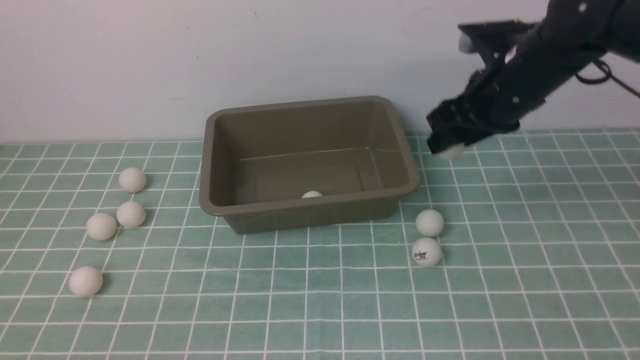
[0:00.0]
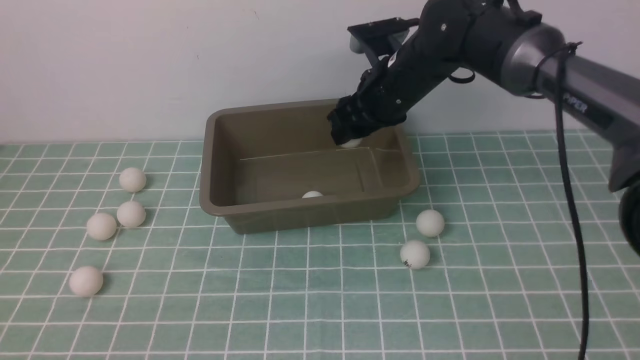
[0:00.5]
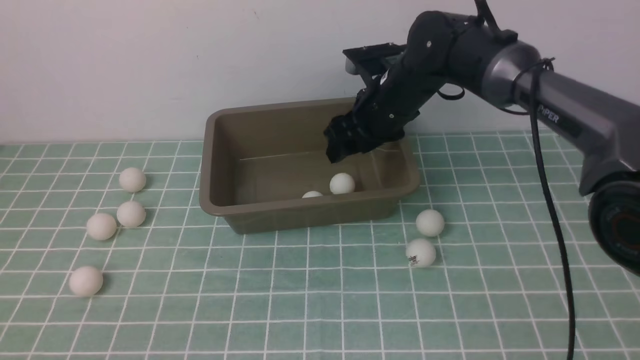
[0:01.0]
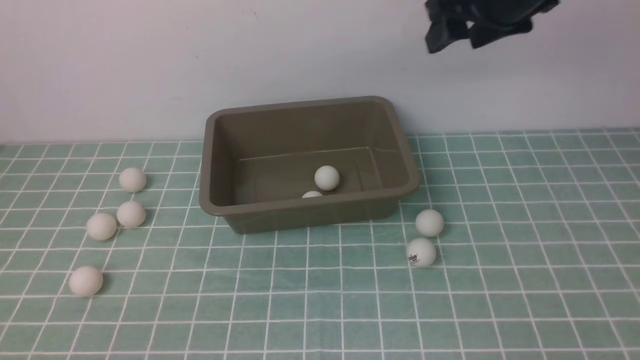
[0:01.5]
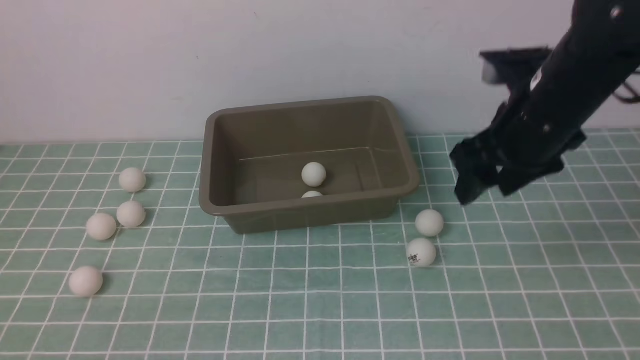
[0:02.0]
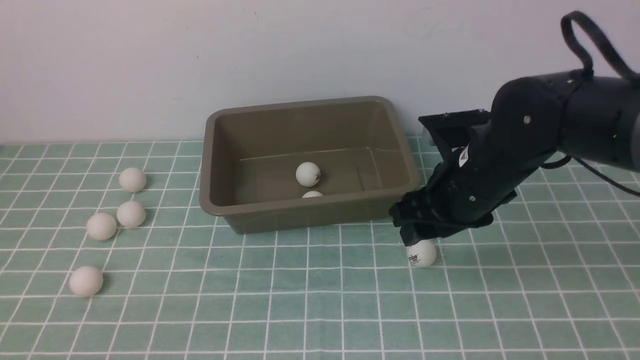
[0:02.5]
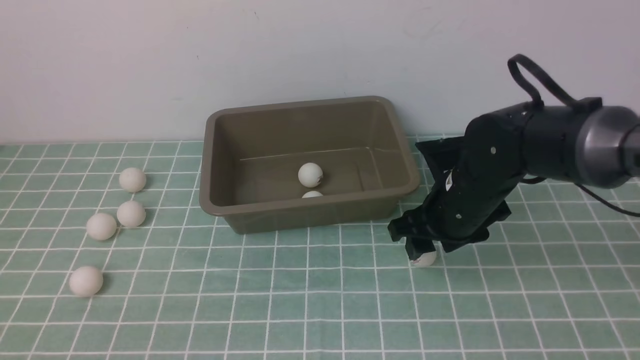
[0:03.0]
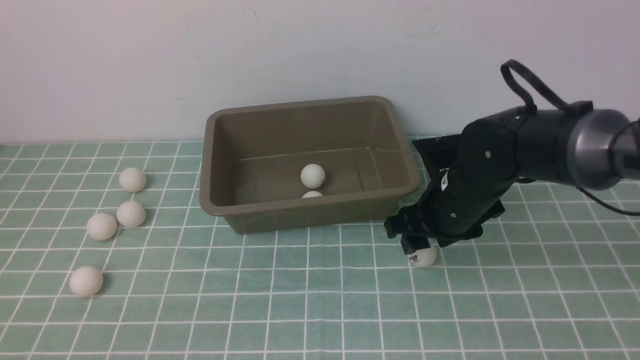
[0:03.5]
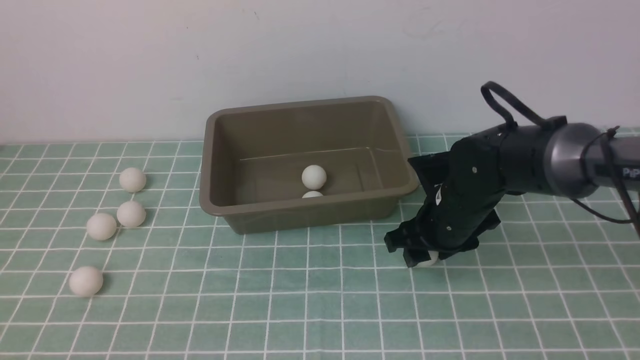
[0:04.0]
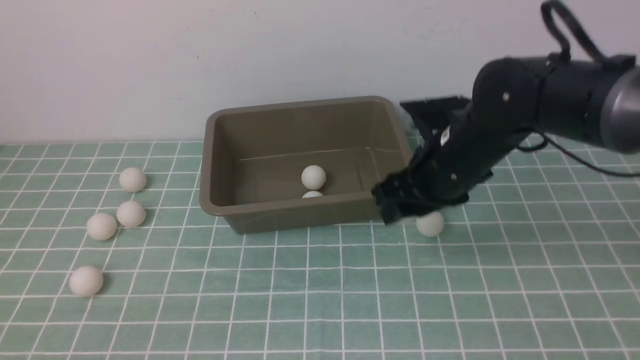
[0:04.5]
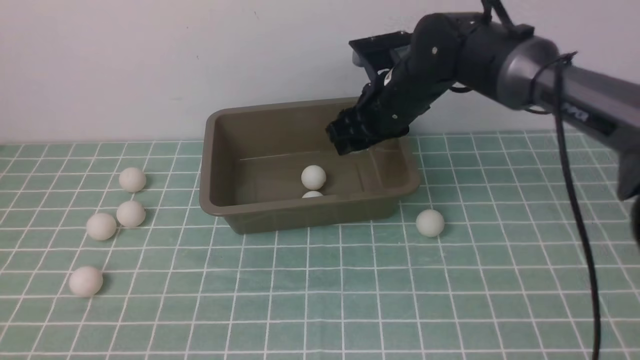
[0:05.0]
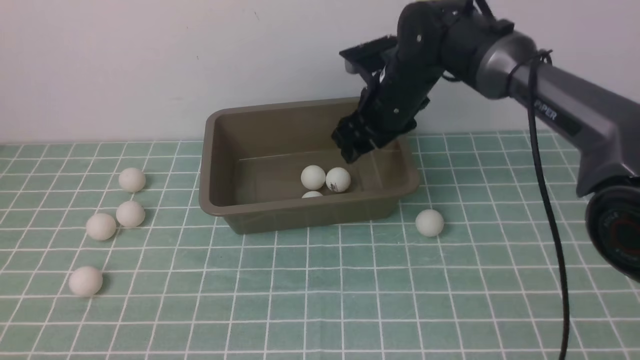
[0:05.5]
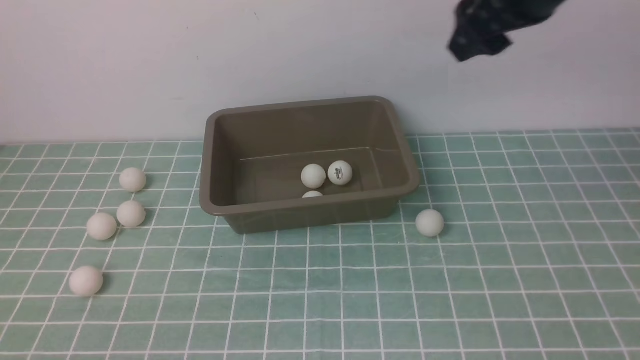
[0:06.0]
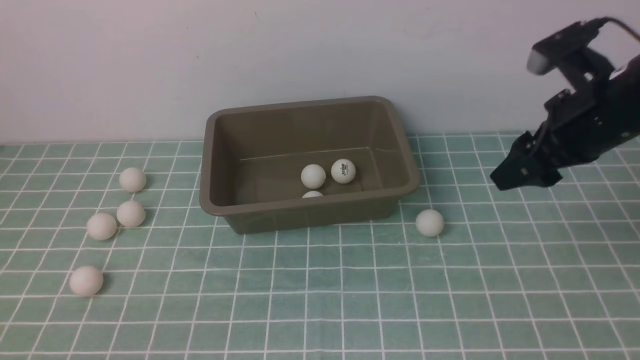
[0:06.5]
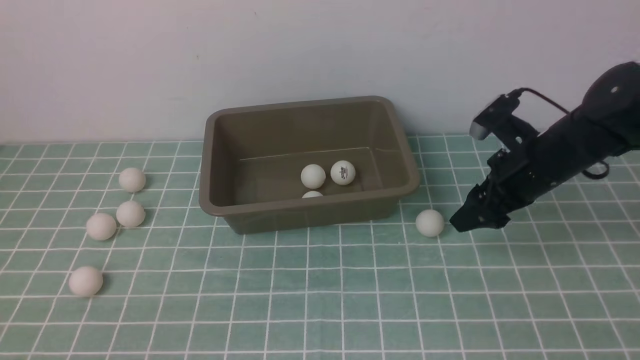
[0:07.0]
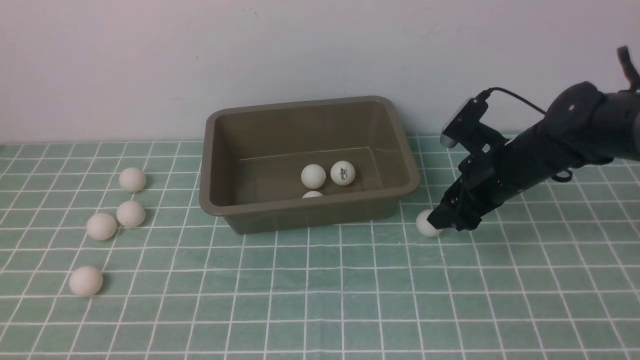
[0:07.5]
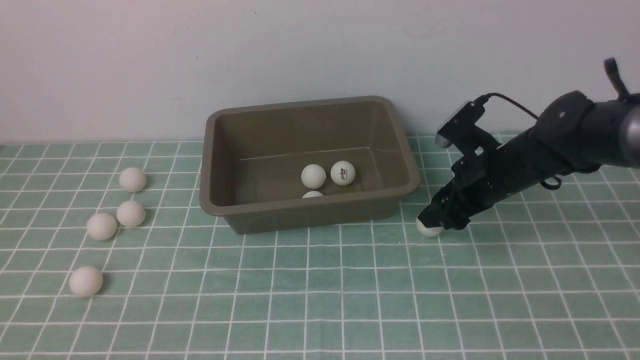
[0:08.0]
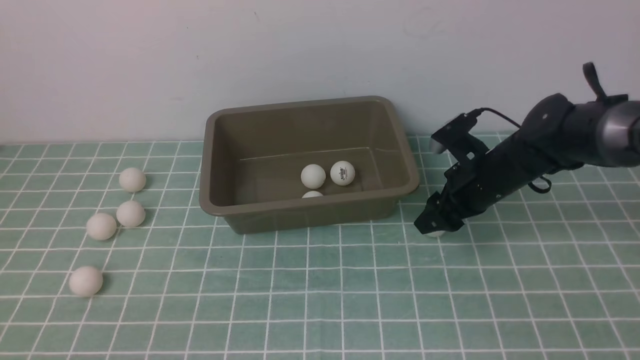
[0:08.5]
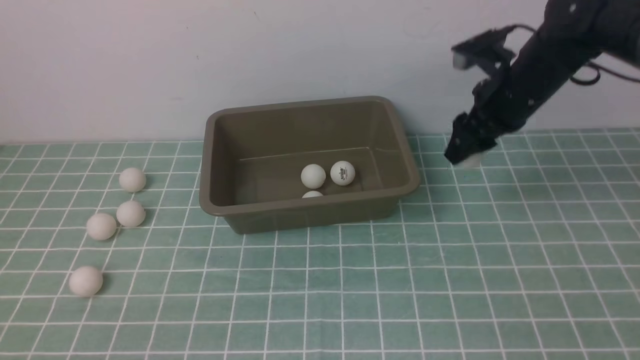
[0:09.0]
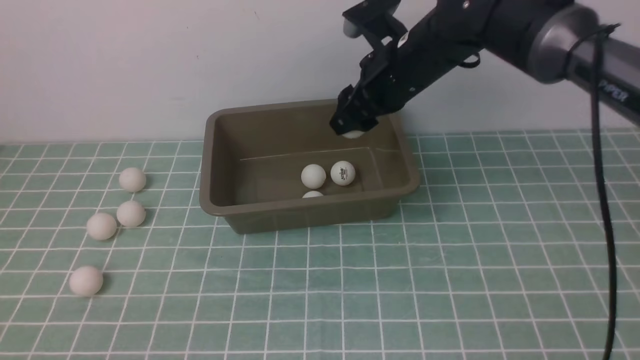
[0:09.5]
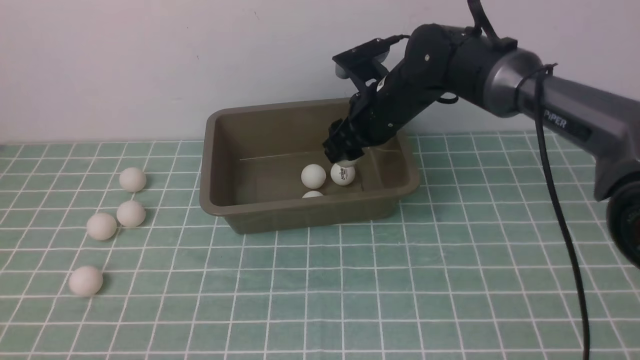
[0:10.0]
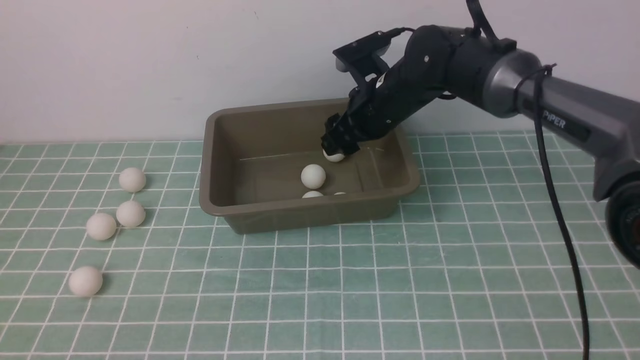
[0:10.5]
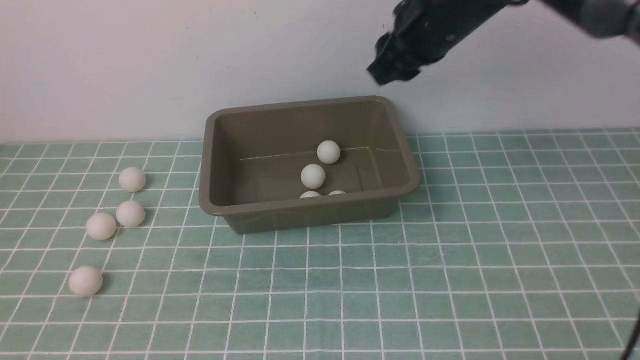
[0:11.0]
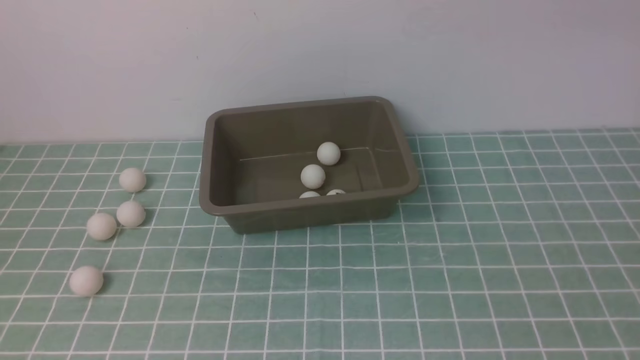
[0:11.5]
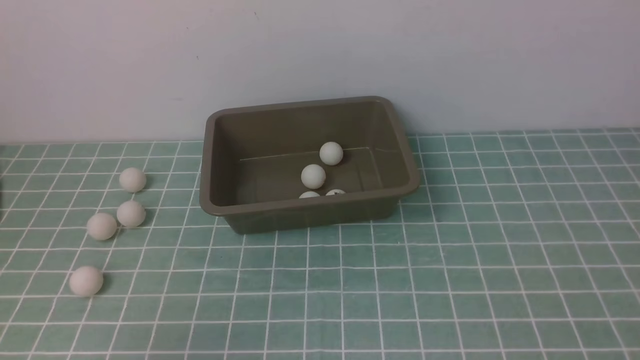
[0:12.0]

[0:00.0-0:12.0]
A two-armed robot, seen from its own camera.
Step, 0:00.0 to 0:01.0: use the right arm to put the table tennis ball into the box.
Step, 0:01.5 to 0:04.0: use the right arm to clamp the table tennis ball closest to it.
Step, 0:04.5 to 0:05.0: use the right arm to put the table tennis ball into the box.
Step, 0:05.5 to 0:08.5: use the right arm to clamp the table tennis ball closest to it.
Step, 0:09.0 to 0:10.0: use the right arm to put the table tennis ball into the box.
0:00.0 to 0:02.0: The right gripper travels backward and to the right by some 15 cm.
0:02.0 to 0:04.0: The right gripper moves downward, approximately 10 cm.
0:04.0 to 0:06.0: The right gripper travels upward by some 25 cm.
0:06.0 to 0:08.0: The right gripper shifts about 25 cm downward.
0:08.0 to 0:10.0: The right gripper travels to the left and upward by approximately 15 cm.
0:10.0 to 0:12.0: The right gripper heads backward, to the right and upward, covering about 40 cm, and closes up; the left gripper moves upward and forward, approximately 20 cm.

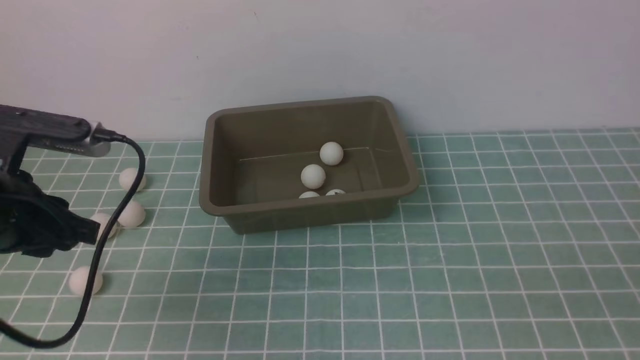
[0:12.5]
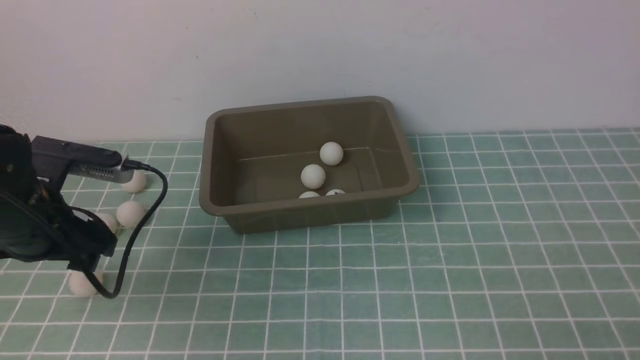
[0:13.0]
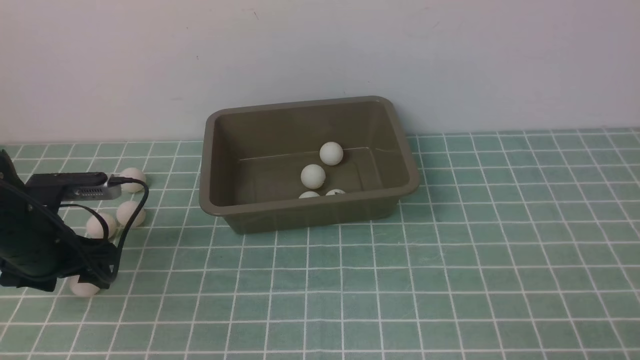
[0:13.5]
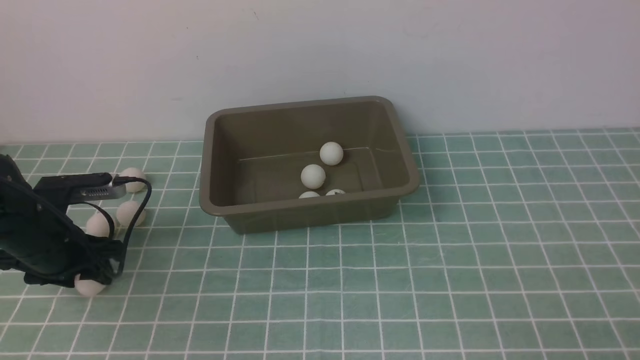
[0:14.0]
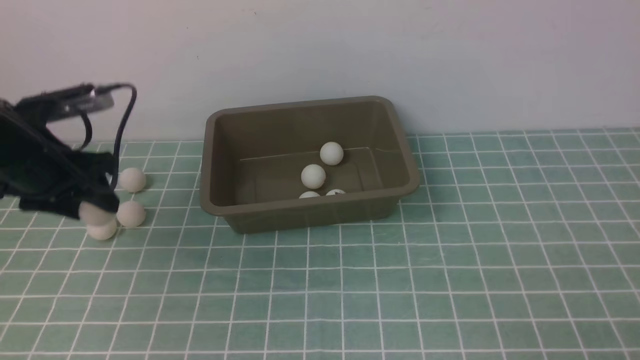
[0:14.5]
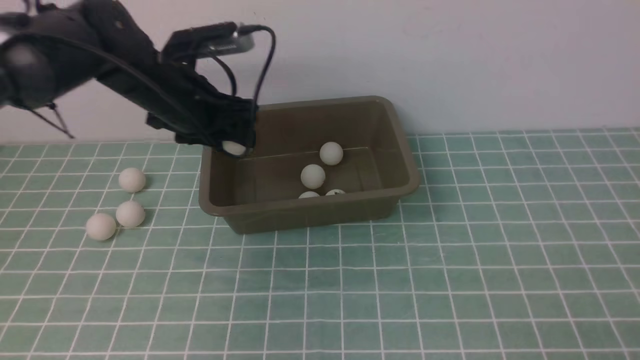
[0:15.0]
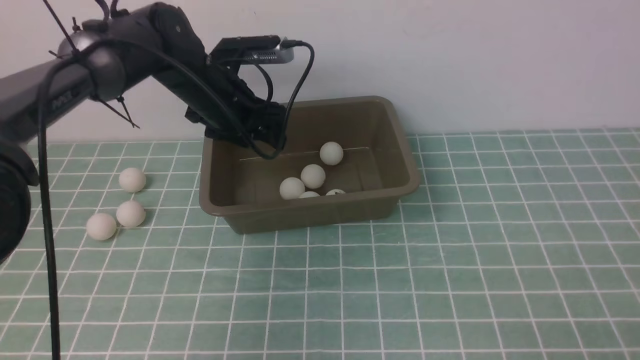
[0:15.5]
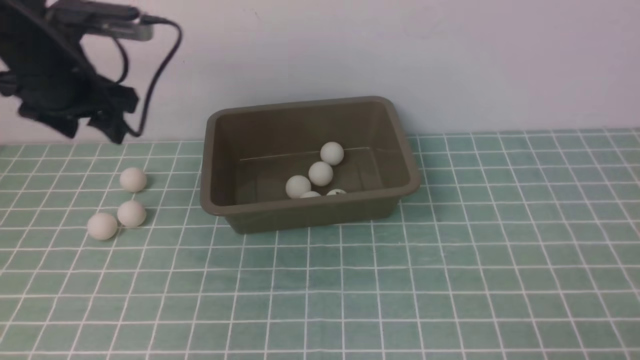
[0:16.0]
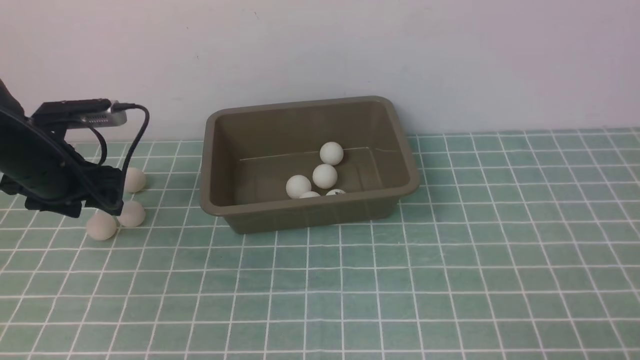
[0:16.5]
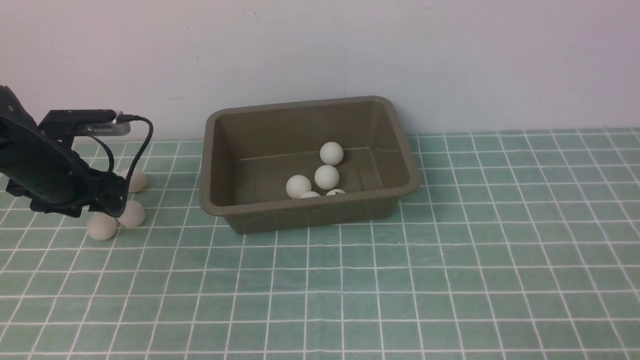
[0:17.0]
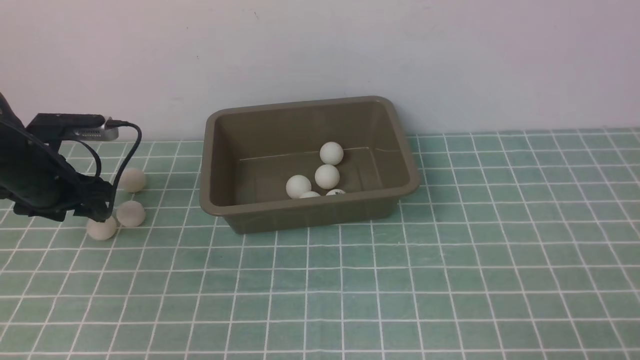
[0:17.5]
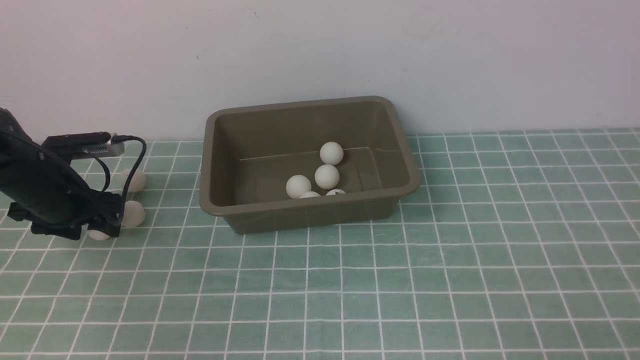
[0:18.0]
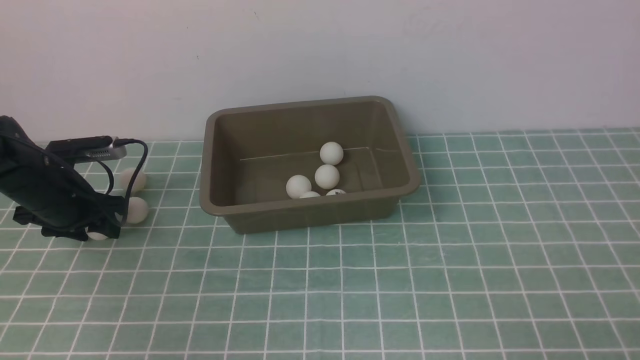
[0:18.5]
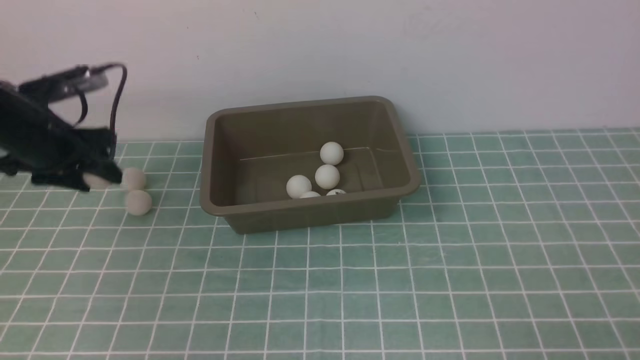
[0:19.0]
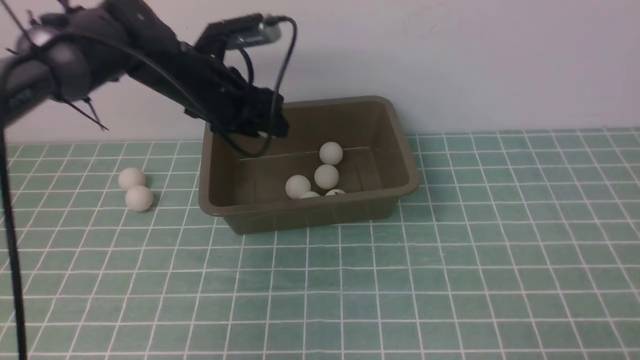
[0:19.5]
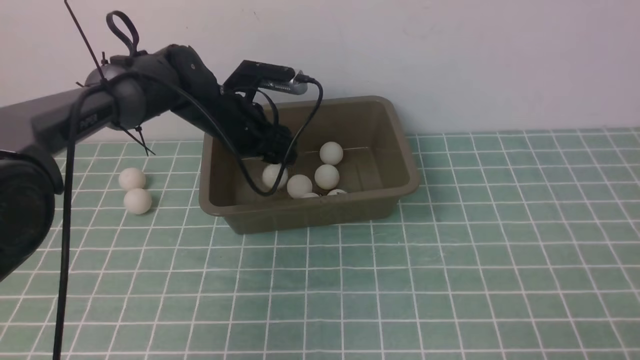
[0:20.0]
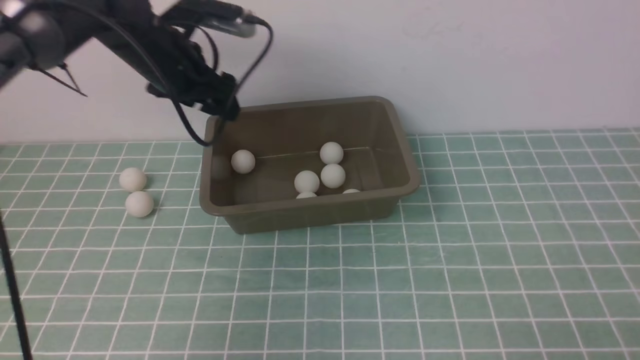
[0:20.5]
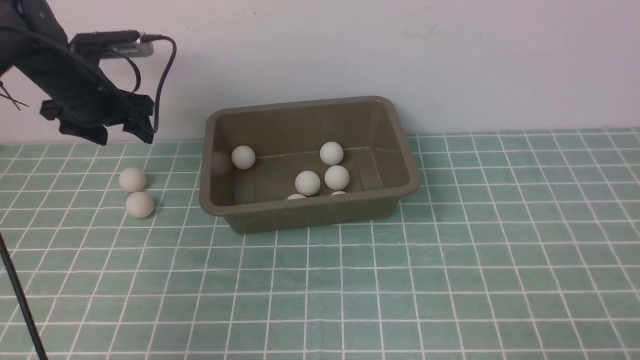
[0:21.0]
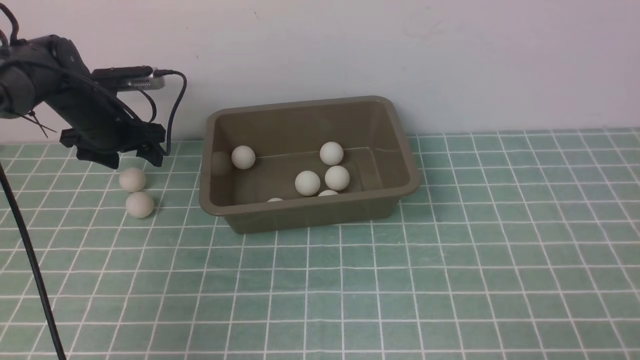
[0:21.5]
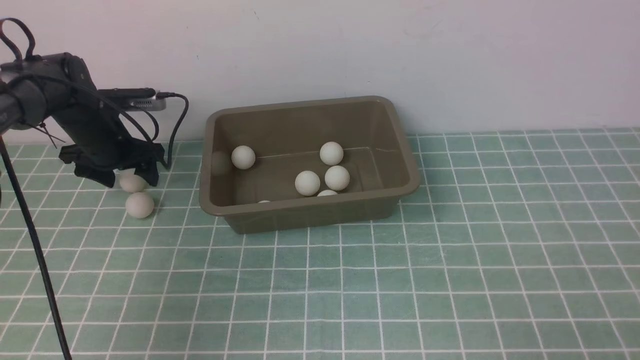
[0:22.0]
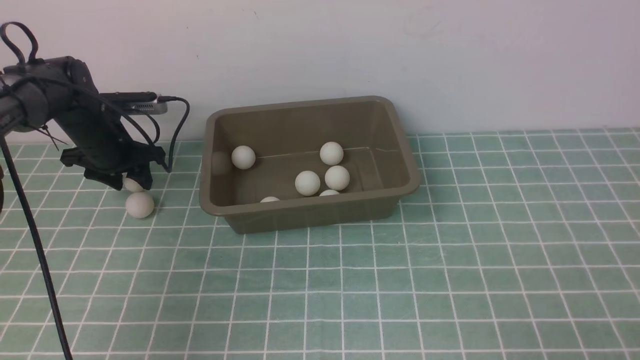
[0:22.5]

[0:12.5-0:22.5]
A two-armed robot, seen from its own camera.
Step, 0:14.5 to 0:15.0: use the left arm to put the table tennis ball into the box.
Step, 0:16.0 to 0:18.5: use the left arm to clamp the table tennis ball closest to it.
Step, 0:19.5 to 0:20.0: use the left arm to put the table tennis ball into the box.
0:12.5 to 0:14.5: The left gripper is displaced forward by roughly 15 cm, moves about 15 cm downward and comes back, and opens and closes again.
0:14.5 to 0:16.5: The left gripper travels to the right and back again, roughly 10 cm each way.
0:16.5 to 0:18.5: The left gripper is displaced downward by roughly 5 cm.
0:18.5 to 0:20.5: The left gripper goes some 20 cm upward, to the right and forward.
0:20.5 to 0:22.5: The left gripper travels downward and to the left by approximately 15 cm, and closes its fingers.
